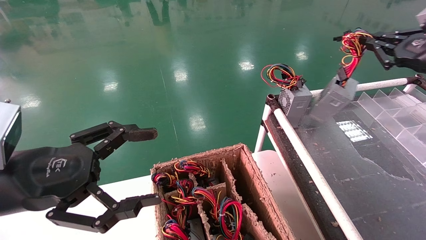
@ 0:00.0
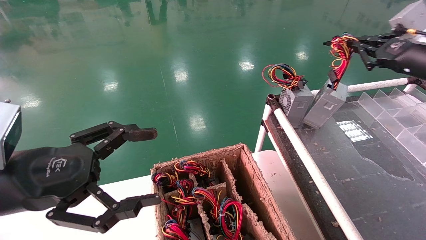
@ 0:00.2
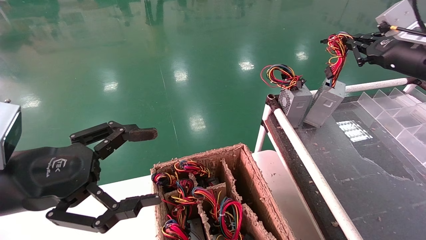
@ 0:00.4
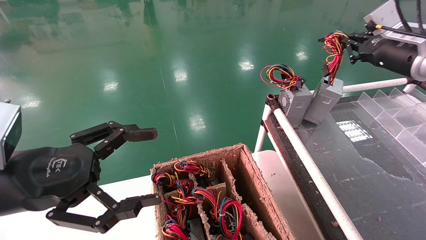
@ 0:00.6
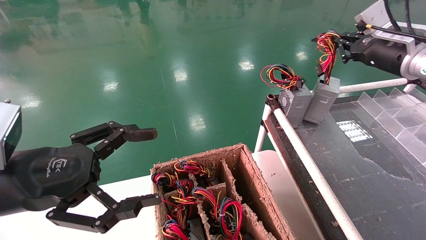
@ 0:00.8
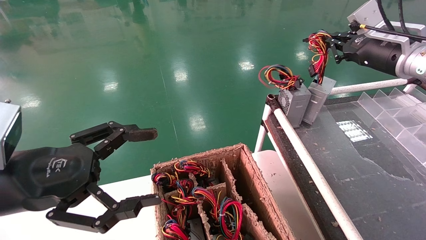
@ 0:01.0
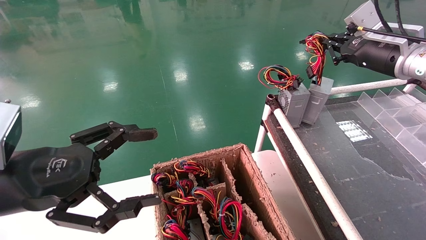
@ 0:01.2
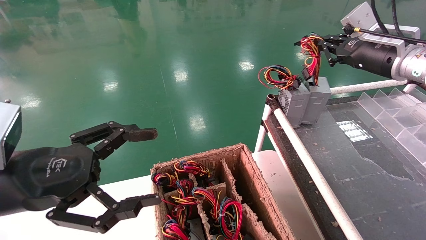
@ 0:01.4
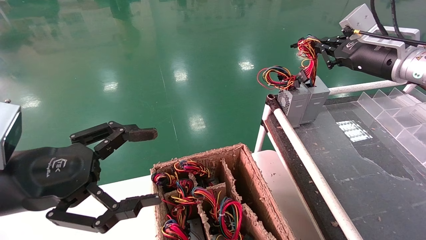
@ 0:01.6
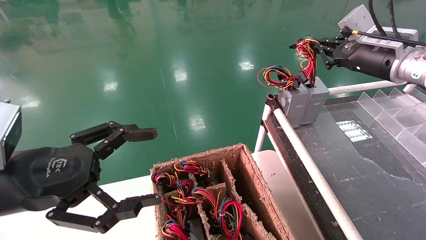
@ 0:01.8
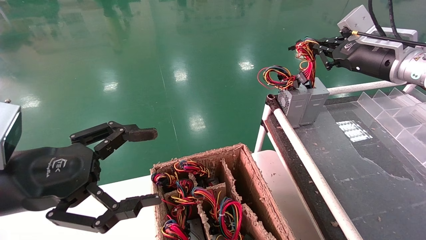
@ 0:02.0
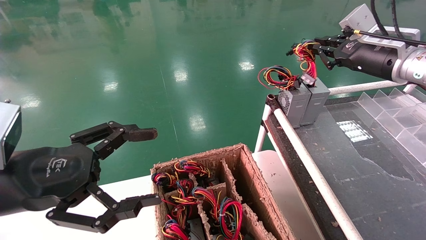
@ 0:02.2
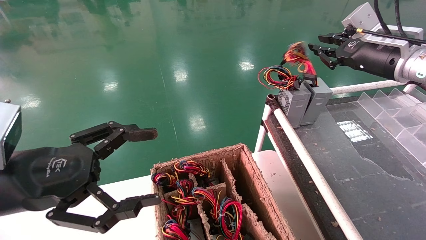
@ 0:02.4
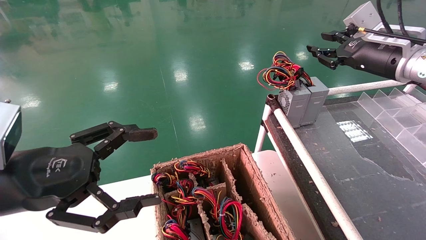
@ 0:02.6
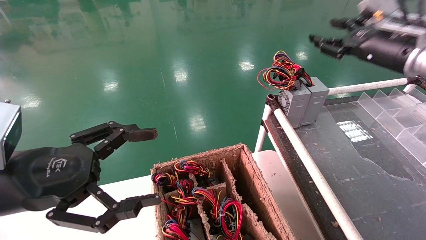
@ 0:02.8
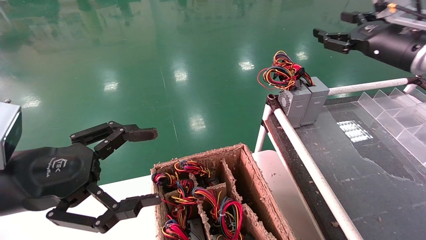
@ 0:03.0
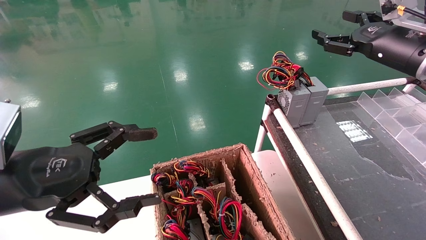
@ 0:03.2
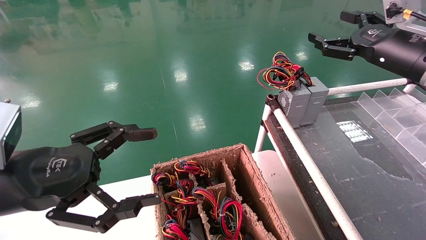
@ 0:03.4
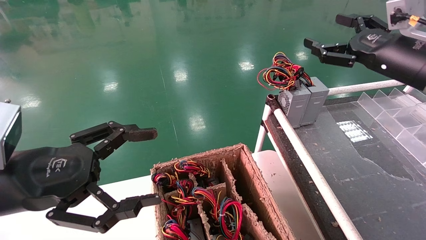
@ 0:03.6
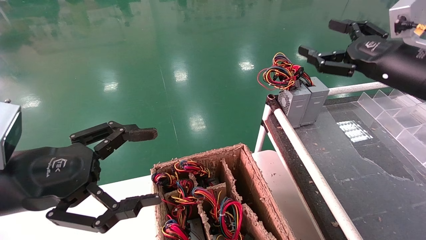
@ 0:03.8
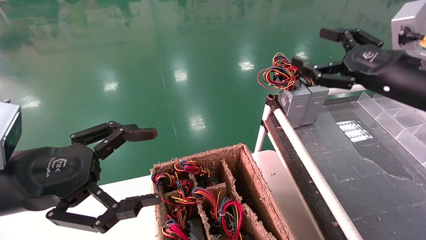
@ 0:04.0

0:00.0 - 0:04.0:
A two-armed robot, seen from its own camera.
Step, 0:00.0 - 0:02.2: Place the power supply on the operating table.
0:00.0 - 0:01.4: The right gripper moves to the left and forward, approximately 10 cm.
0:01.4 - 0:02.6: Both grippers stay about where they are.
0:02.6 - 0:04.0: The right gripper is displaced backward by roughly 10 cm, and opens up.

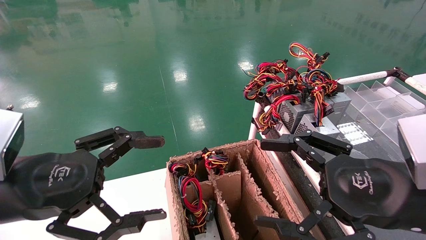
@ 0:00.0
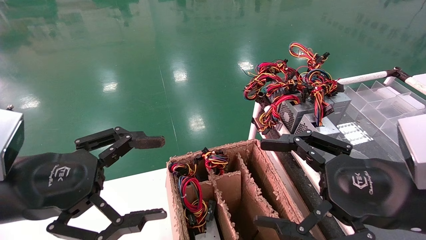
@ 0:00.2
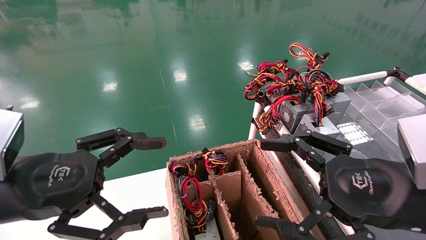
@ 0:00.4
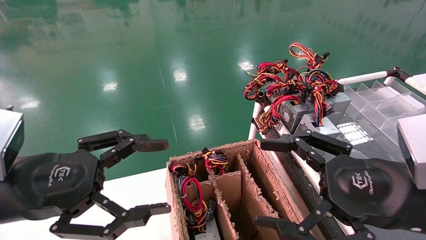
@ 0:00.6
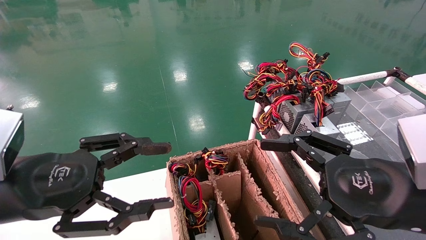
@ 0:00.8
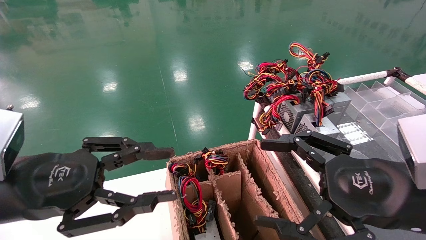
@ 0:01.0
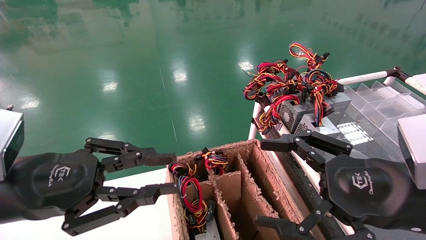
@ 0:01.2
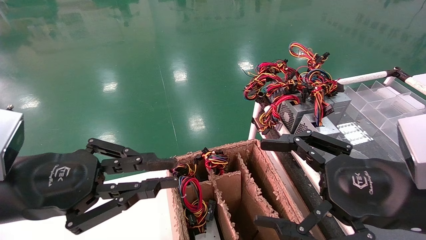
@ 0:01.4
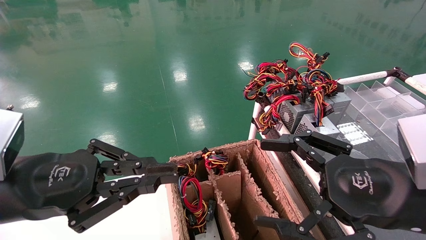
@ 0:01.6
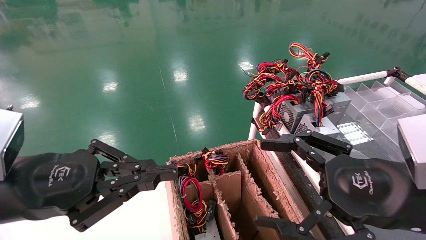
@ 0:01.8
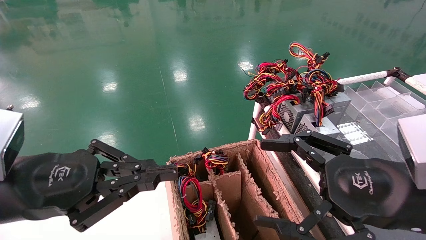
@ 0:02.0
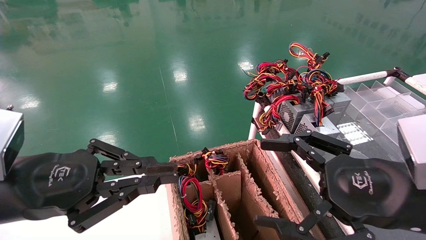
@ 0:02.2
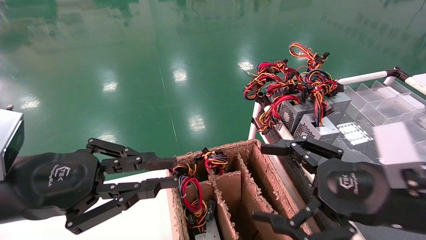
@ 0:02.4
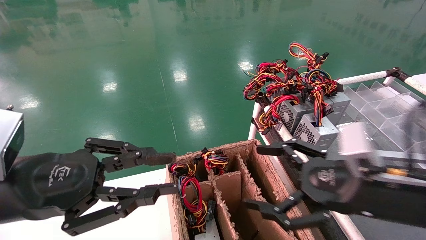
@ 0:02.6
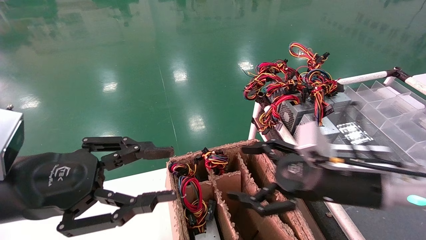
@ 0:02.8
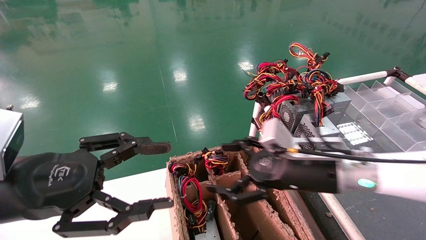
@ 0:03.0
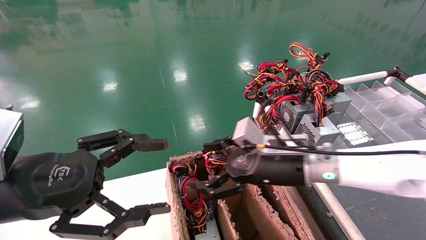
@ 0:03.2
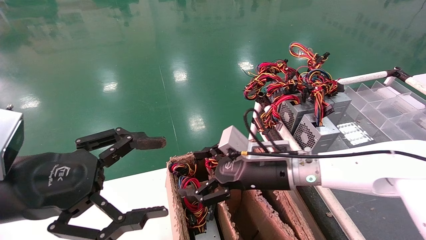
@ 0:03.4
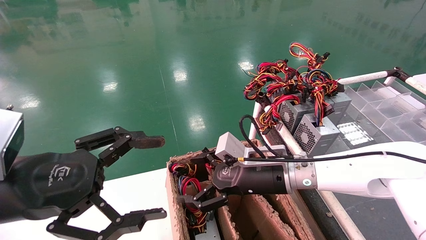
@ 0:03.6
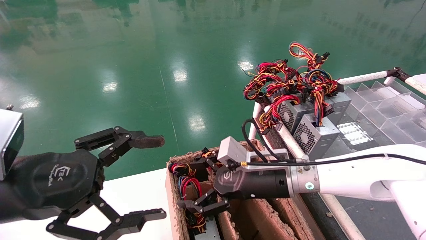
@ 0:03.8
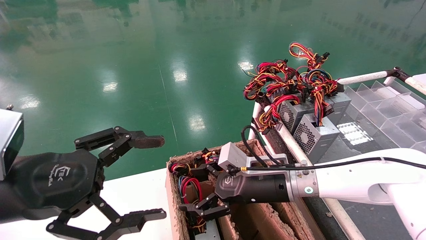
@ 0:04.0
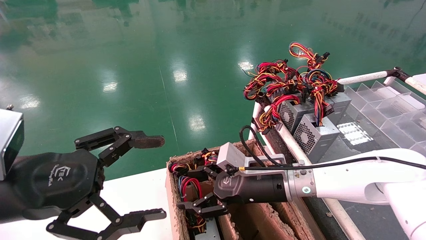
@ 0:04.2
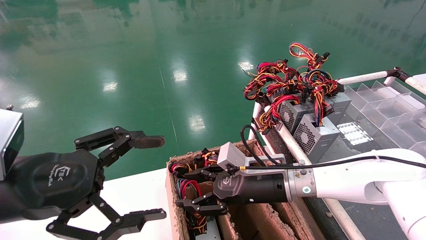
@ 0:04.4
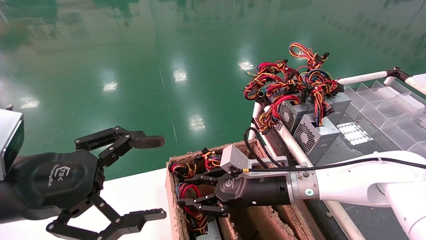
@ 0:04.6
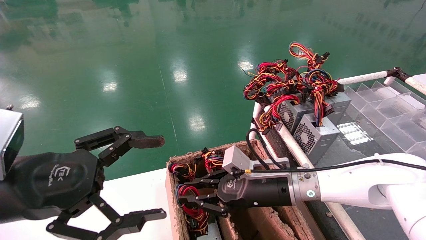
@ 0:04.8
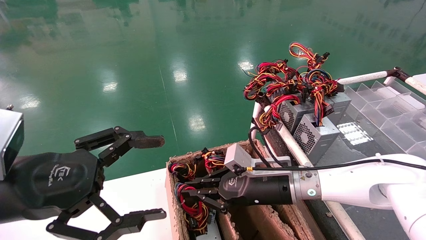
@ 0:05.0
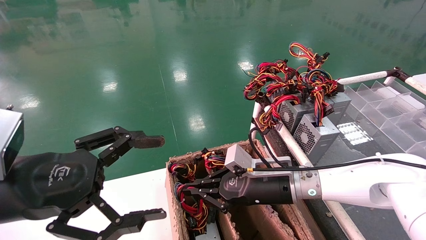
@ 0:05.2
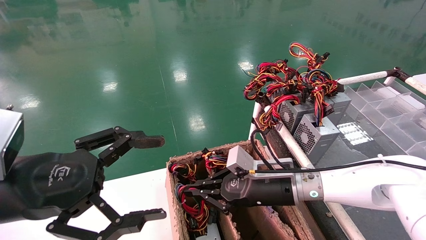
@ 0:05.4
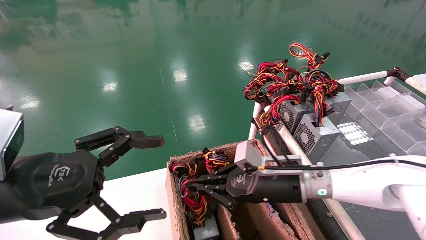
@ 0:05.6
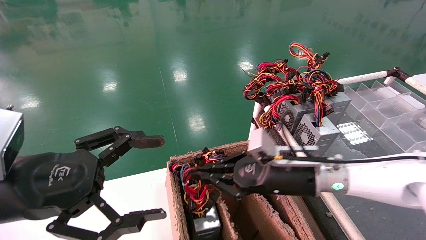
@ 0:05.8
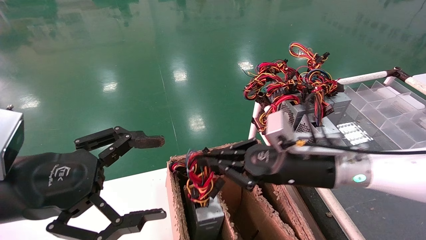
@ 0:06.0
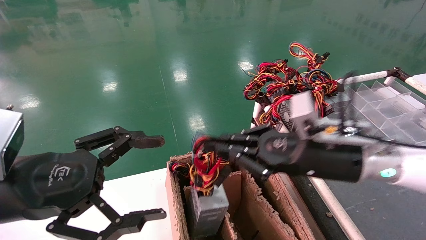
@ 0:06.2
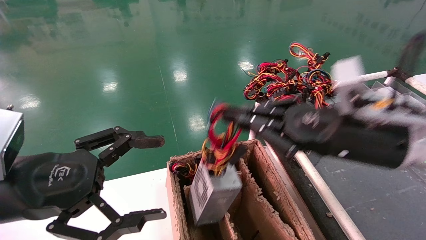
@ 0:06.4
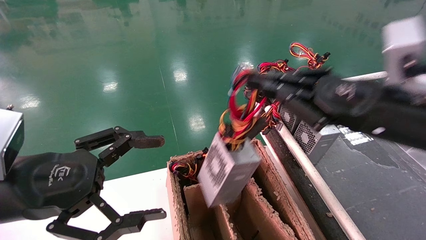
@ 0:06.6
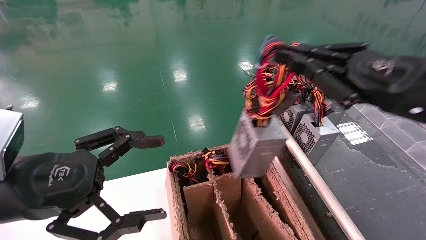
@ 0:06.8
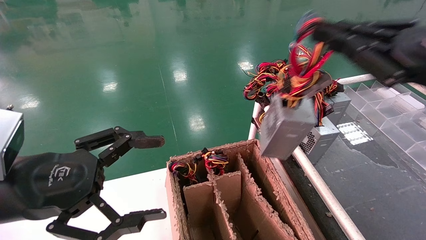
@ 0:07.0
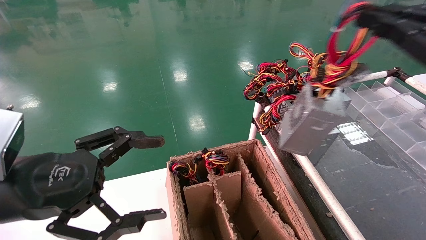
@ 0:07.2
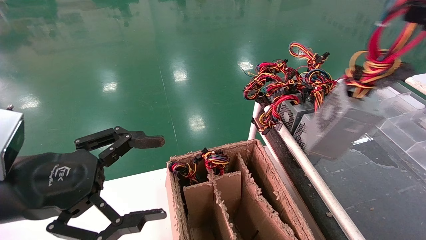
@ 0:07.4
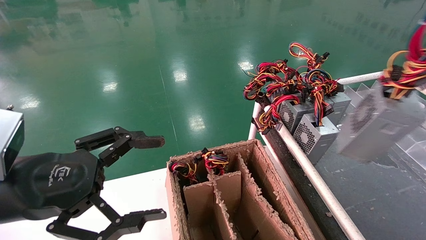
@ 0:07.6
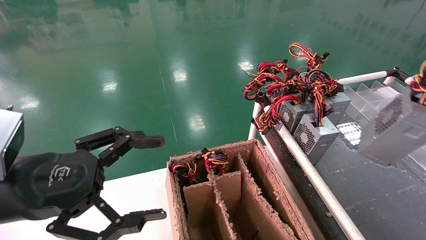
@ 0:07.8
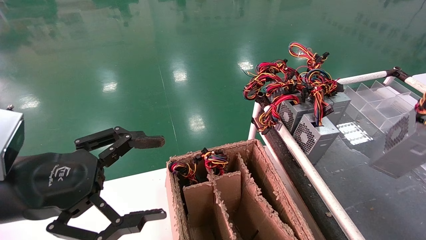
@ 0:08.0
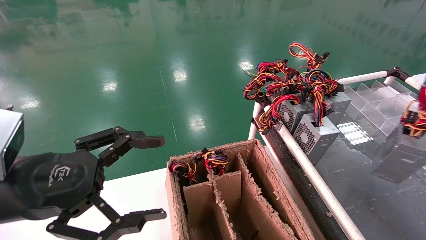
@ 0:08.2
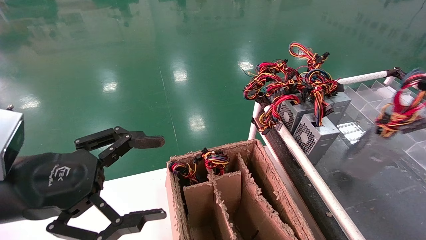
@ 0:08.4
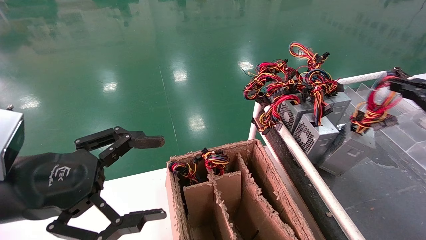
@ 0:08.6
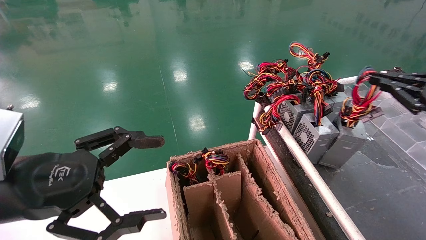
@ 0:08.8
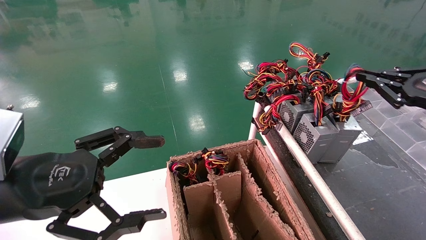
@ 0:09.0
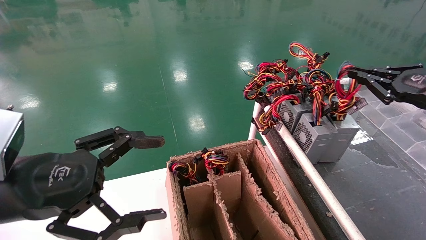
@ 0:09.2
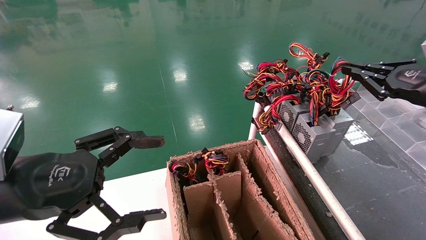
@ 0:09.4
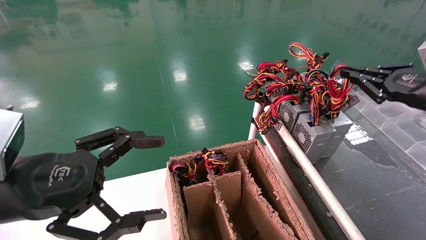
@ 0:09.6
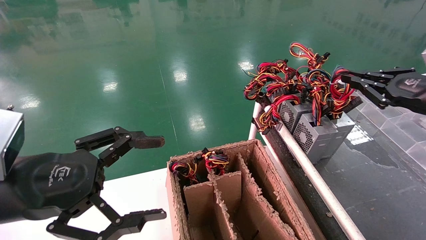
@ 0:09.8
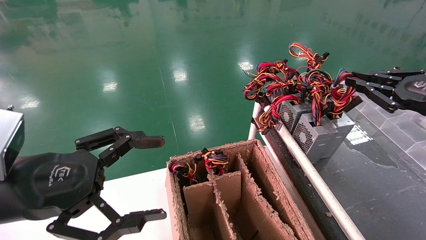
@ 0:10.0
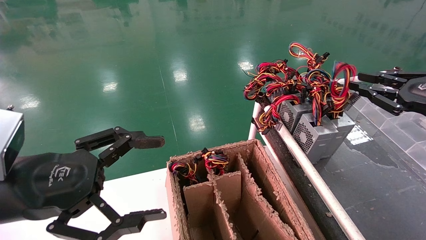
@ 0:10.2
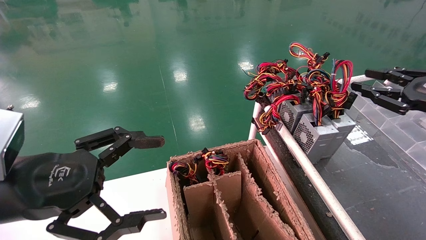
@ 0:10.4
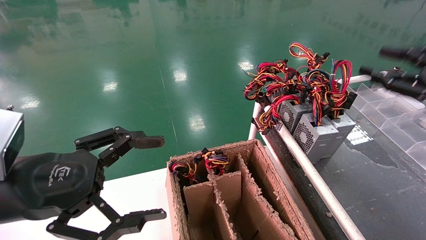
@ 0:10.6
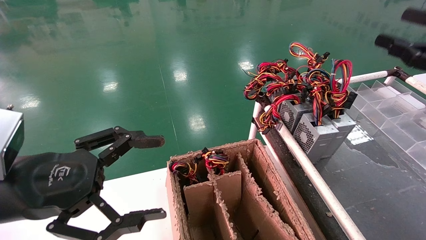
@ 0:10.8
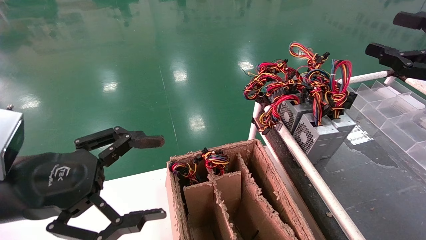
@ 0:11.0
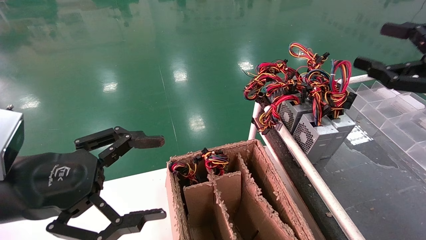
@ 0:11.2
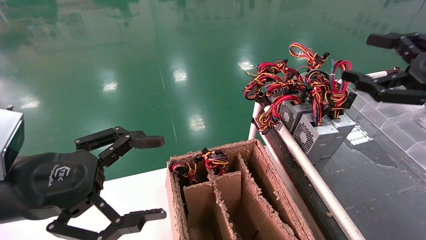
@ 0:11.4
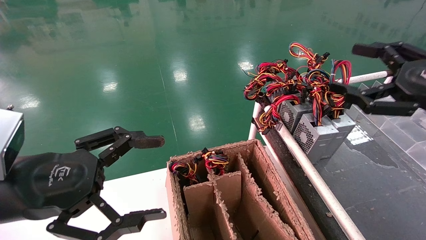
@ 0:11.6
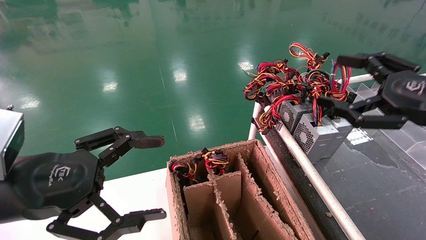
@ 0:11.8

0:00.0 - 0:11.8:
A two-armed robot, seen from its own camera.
Step, 0:01.8 - 0:05.2: Grab and lift the power supply from the large box.
Step, 0:05.4 - 0:09.8: Place the power supply on the operating table.
0:00.0 - 0:01.4: The left gripper closes its fingers.
0:01.4 - 0:03.0: The right gripper travels forward and to the left by about 15 cm.
0:03.0 - 0:04.4: The right gripper goes about 10 cm to the left and downward, while the left gripper opens up.
0:04.4 - 0:06.0: The right gripper travels to the right and upward by roughly 10 cm, and closes its fingers.
0:06.0 - 0:07.4: The right gripper heads to the right, upward and backward, covering approximately 30 cm.
0:07.4 - 0:08.8: The right gripper shifts approximately 15 cm forward and downward.
0:08.8 - 0:10.4: There are only small adjustments of the grippers.
0:10.4 - 0:11.8: The right gripper travels to the left by roughly 10 cm, and opens.

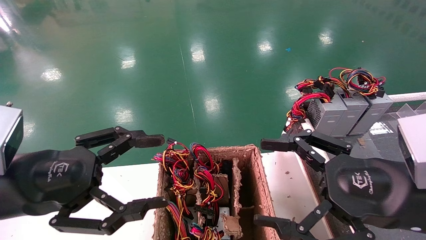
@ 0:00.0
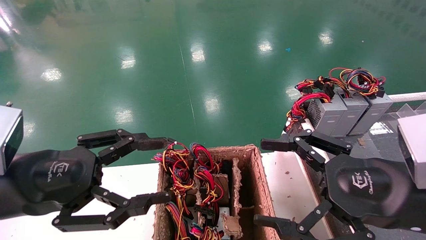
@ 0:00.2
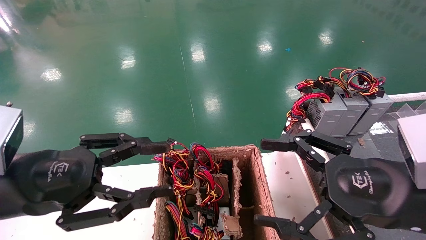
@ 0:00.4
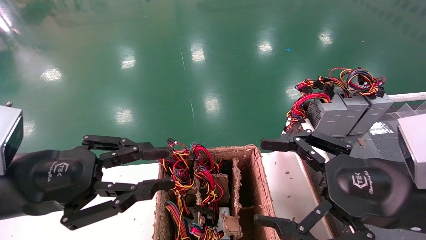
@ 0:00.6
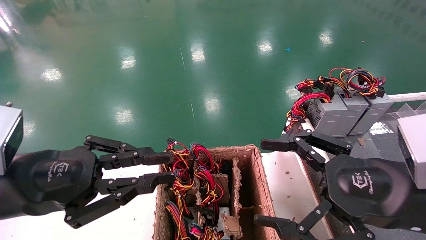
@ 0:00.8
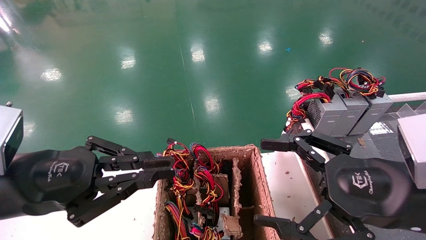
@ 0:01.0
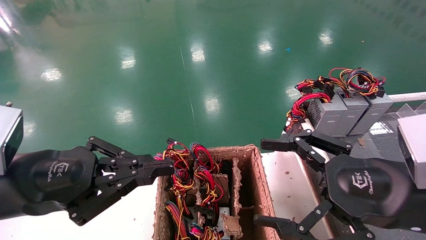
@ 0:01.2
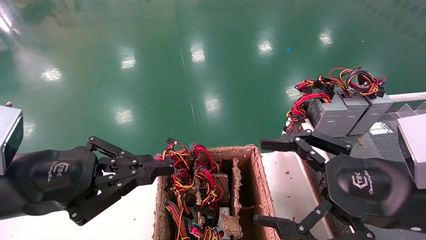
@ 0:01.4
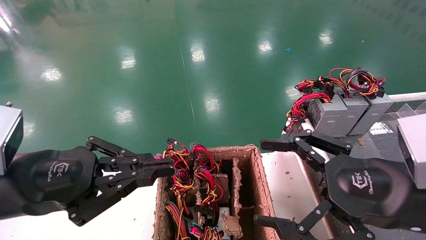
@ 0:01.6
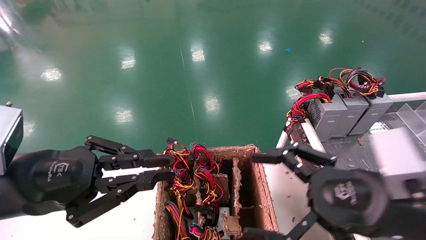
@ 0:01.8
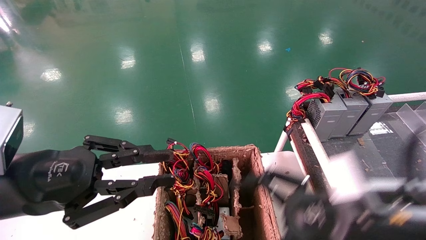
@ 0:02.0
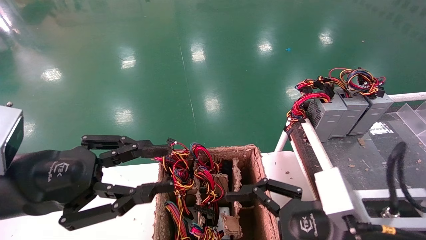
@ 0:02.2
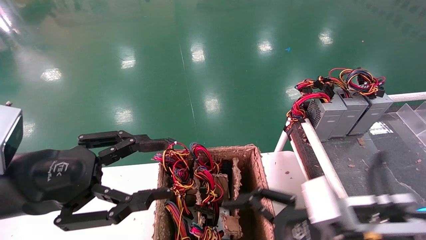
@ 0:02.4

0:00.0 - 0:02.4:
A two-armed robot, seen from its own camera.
0:00.0 - 0:01.2: The left gripper closes its fingers.
0:01.2 - 0:02.4: The right gripper is displaced downward and to the left by roughly 10 cm. The left gripper opens.
